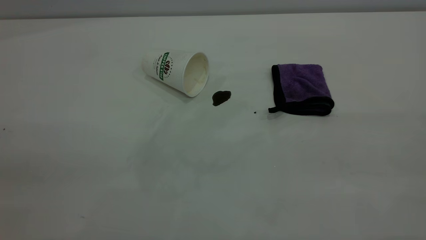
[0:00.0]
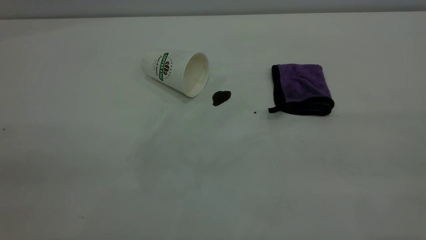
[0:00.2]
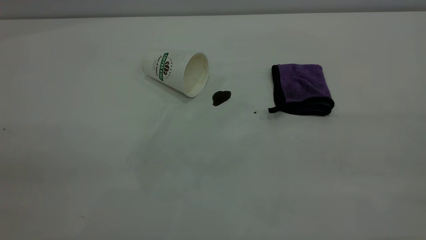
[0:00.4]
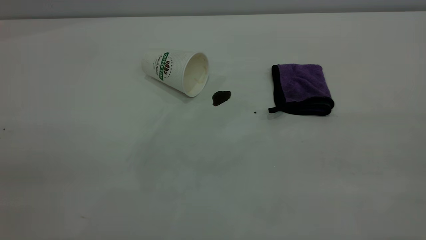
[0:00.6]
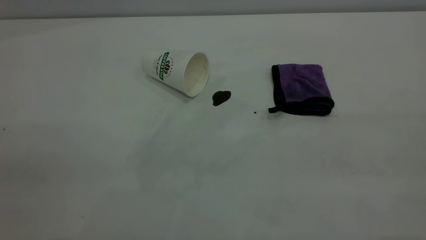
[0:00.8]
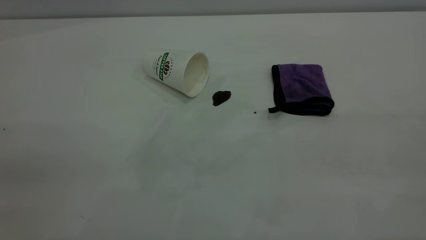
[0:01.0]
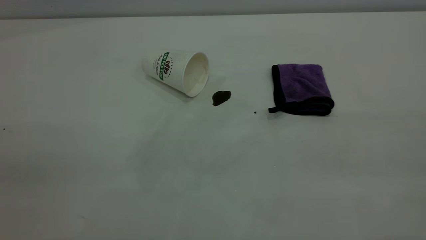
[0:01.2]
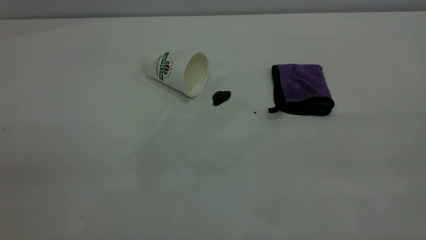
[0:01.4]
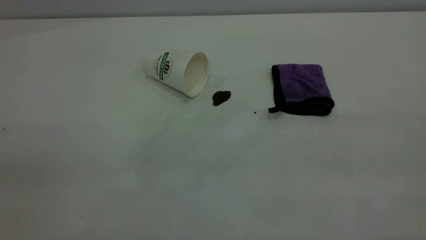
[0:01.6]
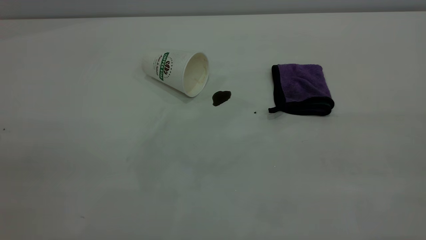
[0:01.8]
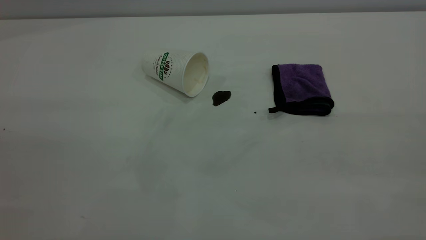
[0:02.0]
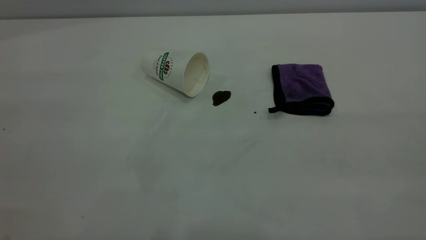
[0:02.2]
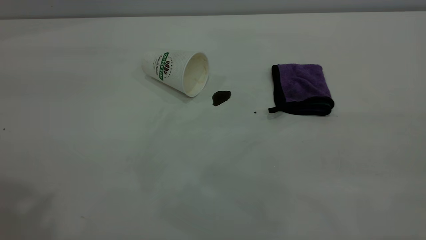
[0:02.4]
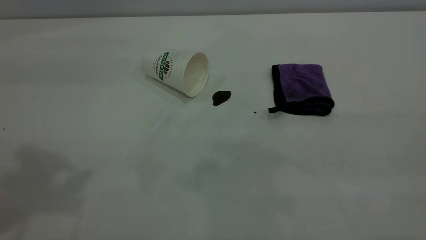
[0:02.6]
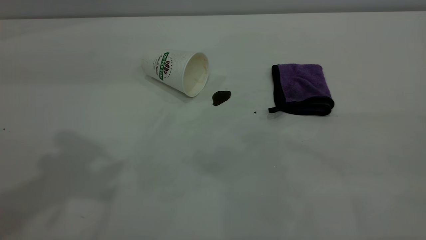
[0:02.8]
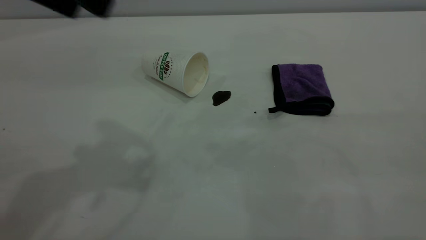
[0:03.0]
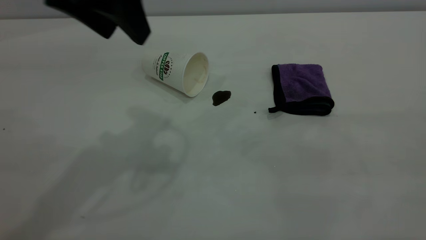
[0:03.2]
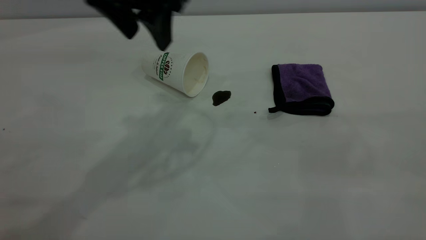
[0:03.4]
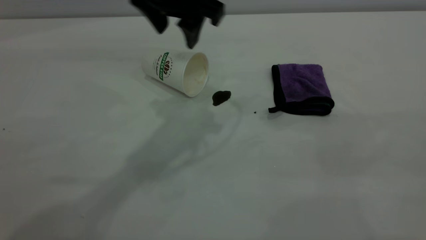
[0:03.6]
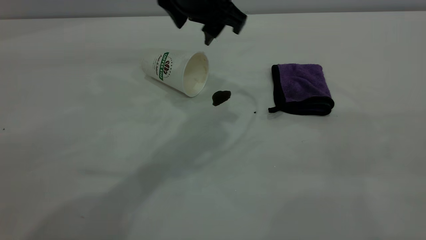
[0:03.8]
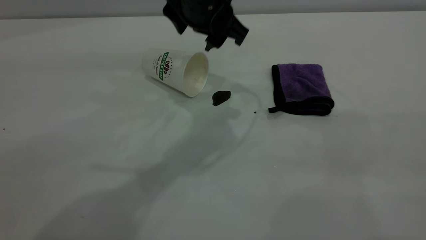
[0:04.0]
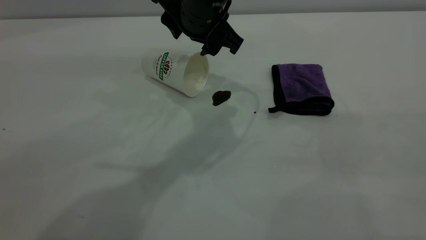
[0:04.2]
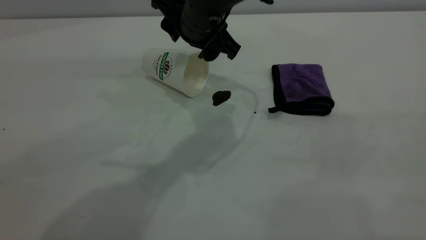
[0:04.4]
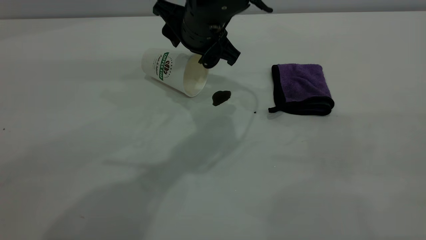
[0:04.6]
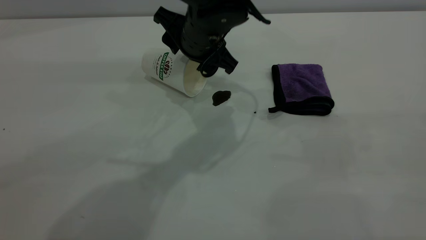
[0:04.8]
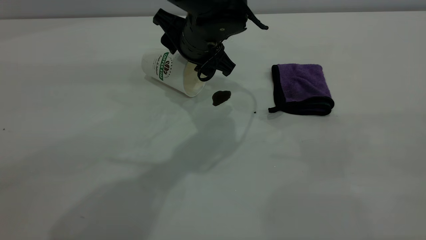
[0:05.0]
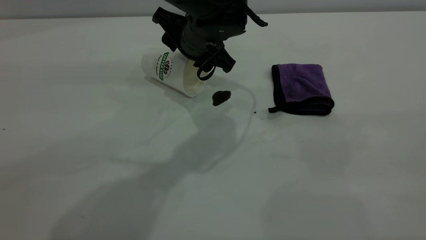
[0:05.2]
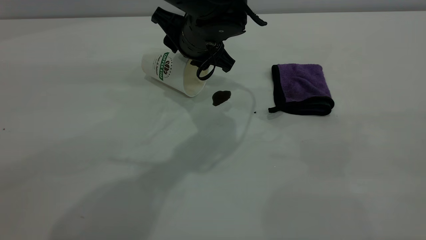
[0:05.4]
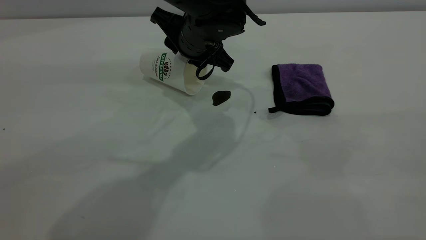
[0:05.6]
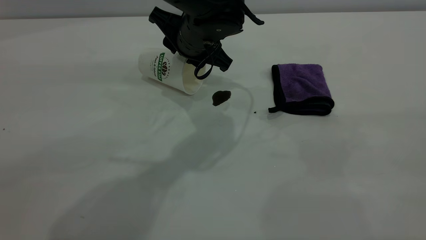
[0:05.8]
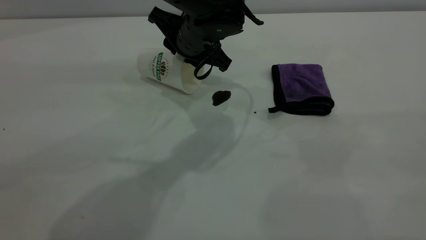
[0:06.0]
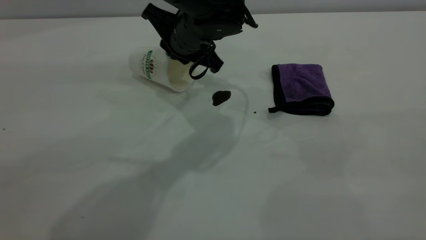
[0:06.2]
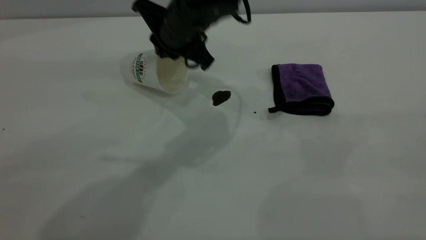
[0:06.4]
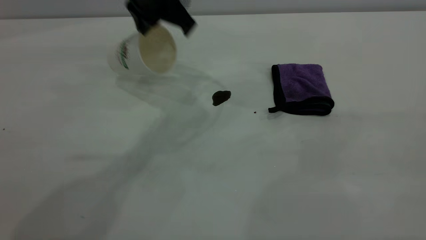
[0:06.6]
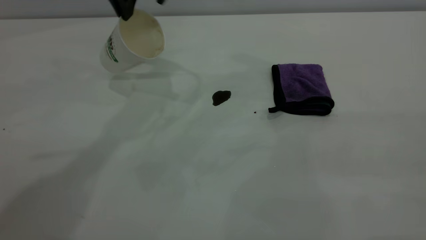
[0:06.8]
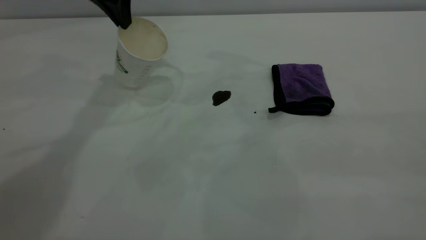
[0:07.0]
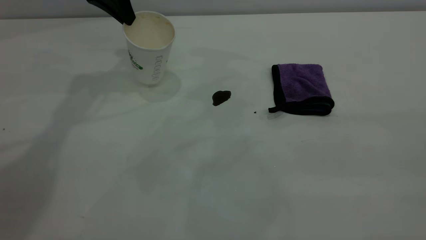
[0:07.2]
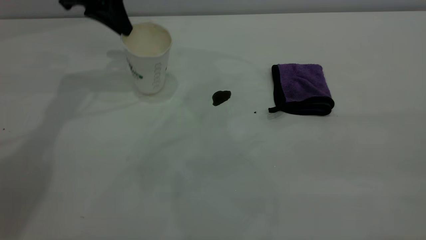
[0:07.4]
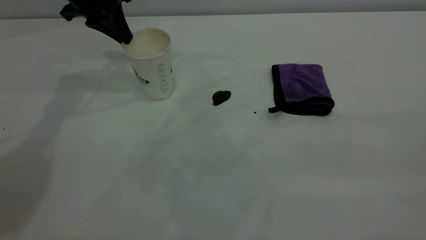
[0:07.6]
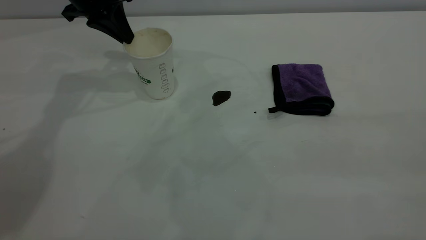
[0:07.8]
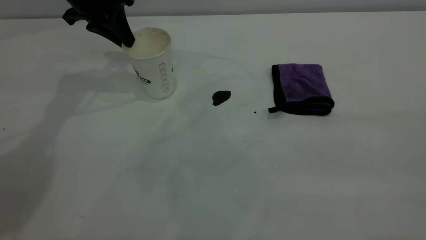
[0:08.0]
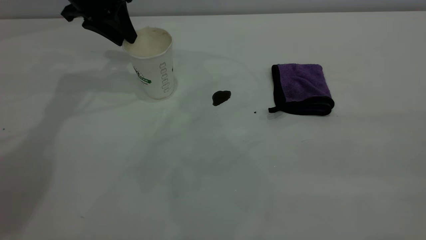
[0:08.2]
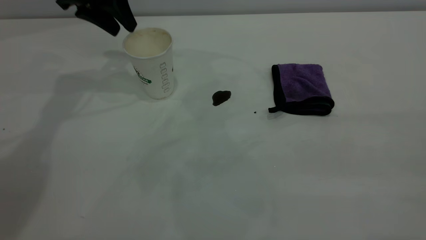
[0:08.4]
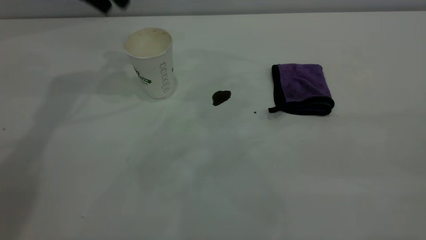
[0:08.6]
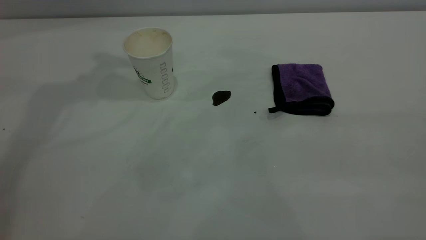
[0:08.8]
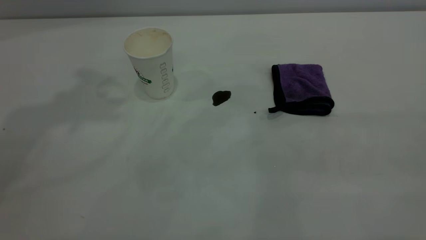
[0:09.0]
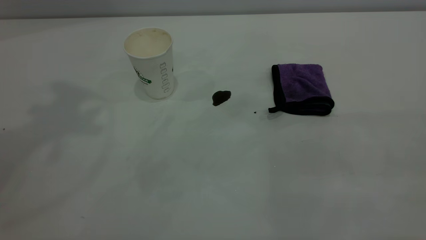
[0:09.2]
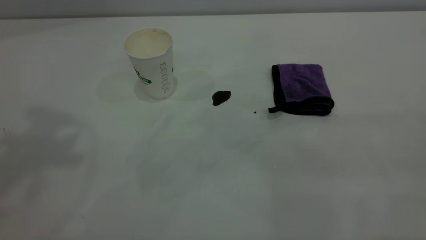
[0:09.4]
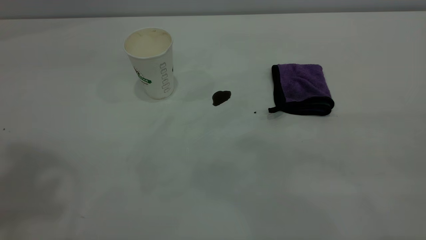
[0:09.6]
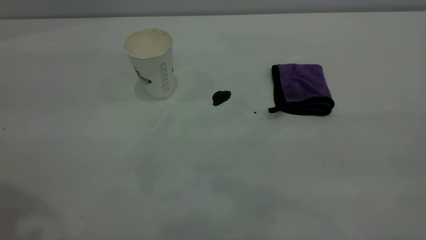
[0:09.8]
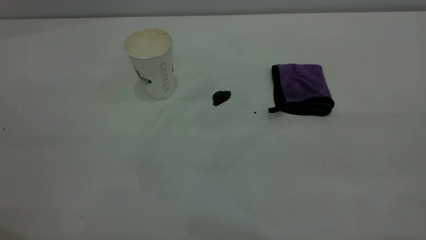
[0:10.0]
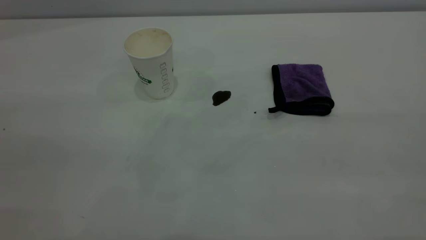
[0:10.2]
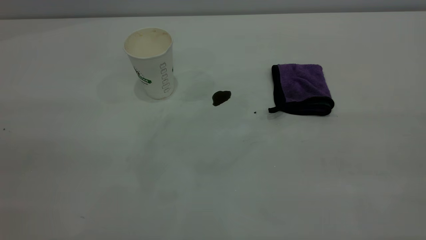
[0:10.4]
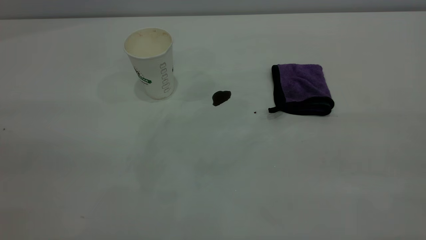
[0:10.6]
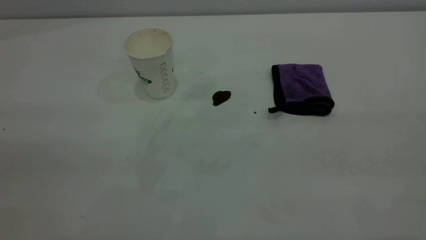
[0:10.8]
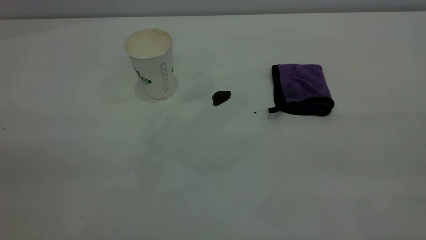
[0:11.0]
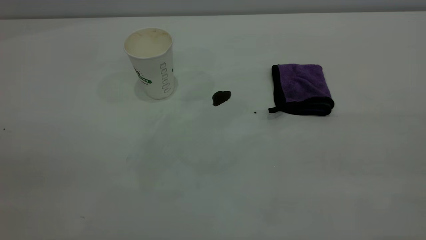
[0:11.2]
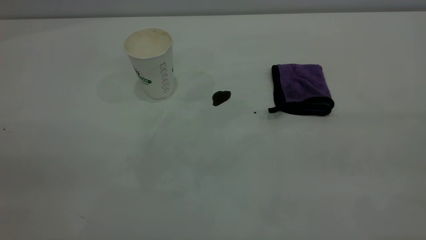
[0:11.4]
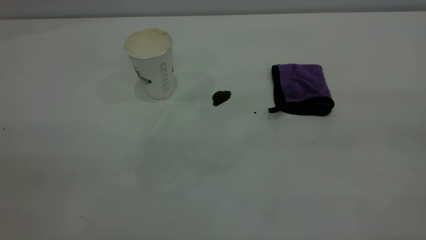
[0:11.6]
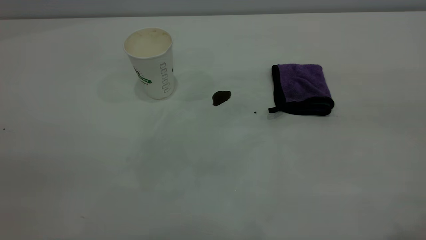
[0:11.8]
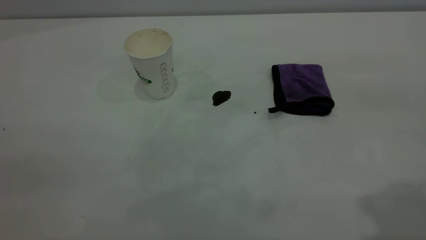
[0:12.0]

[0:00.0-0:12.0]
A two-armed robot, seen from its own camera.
Task of the whole recording: the left gripper pick up the fallen cup and place it upright, the right gripper grasp the purple rag and wipe the coffee stain on the table, the right gripper put the purple rag back in its original position.
Step, 0:00.0 to 0:08.4: Stand the paper cup upright.
0:00.0 to 0:01.6: The two grippers keep their place.
0:01.6 to 0:03.0: The left gripper shifts about 30 cm forward and to the right.
0:03.0 to 0:04.4: The left gripper goes approximately 25 cm downward, to the right and forward.
0:04.4 to 0:06.0: The left gripper closes.
0:06.0 to 0:07.6: The left gripper travels to the left and forward by some 20 cm, and closes.
0:07.6 to 0:09.0: The left gripper travels upward and backward by about 30 cm, and opens up.

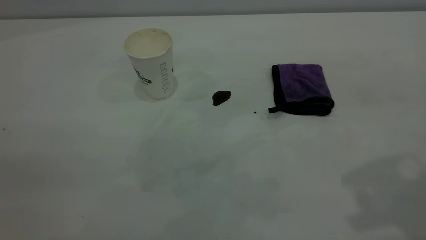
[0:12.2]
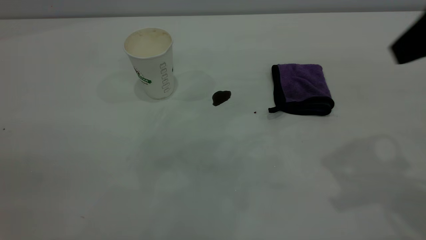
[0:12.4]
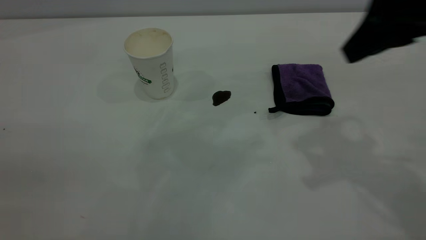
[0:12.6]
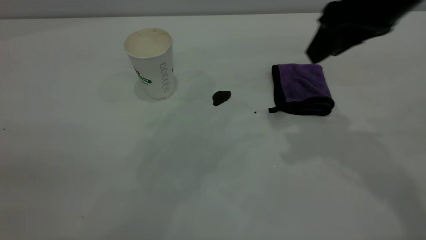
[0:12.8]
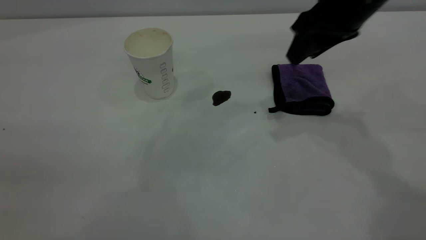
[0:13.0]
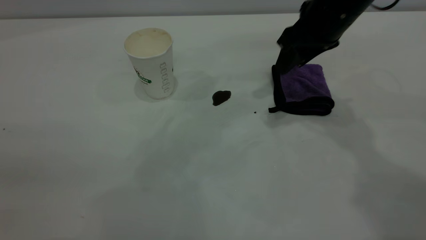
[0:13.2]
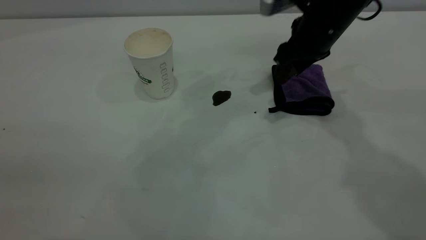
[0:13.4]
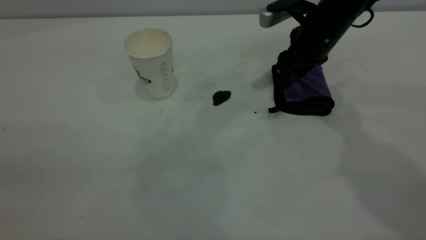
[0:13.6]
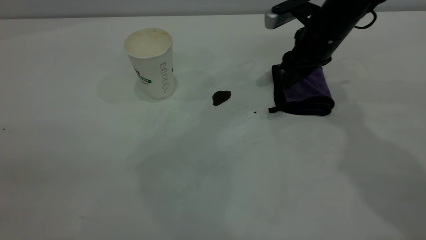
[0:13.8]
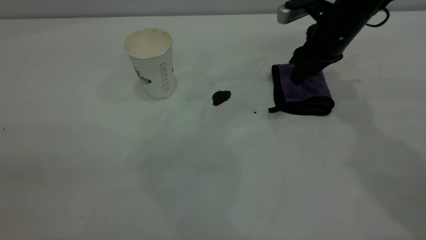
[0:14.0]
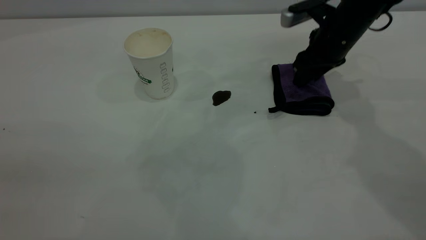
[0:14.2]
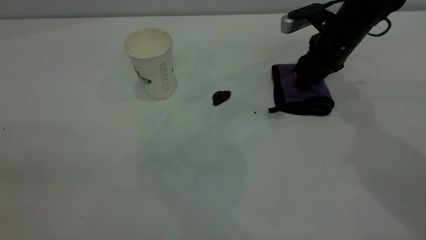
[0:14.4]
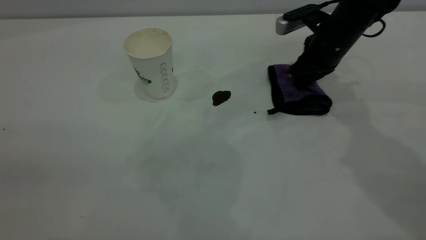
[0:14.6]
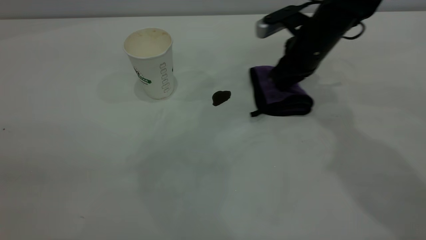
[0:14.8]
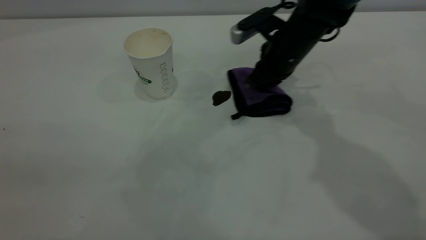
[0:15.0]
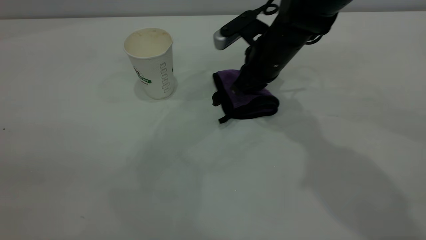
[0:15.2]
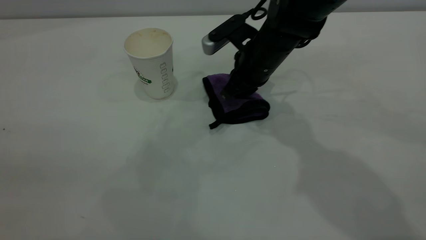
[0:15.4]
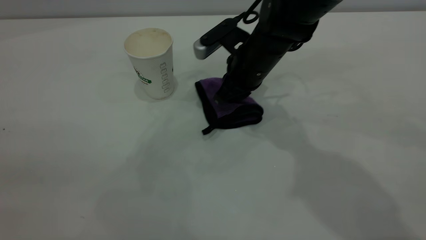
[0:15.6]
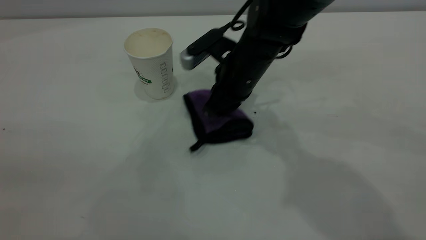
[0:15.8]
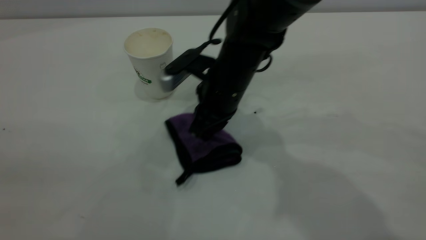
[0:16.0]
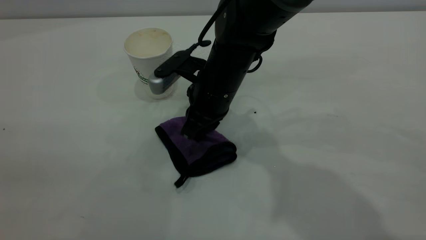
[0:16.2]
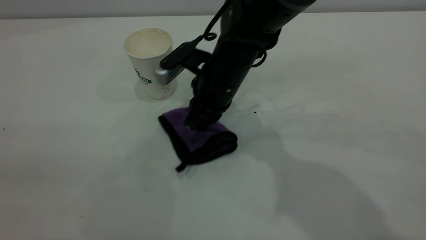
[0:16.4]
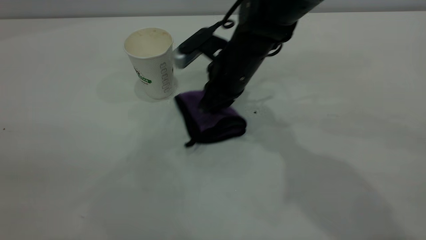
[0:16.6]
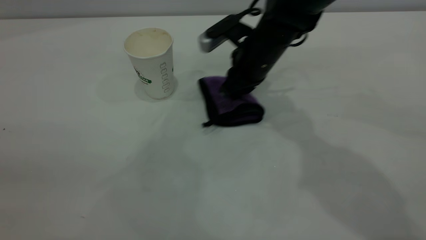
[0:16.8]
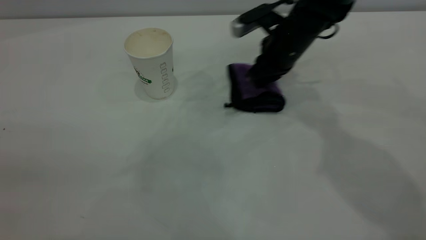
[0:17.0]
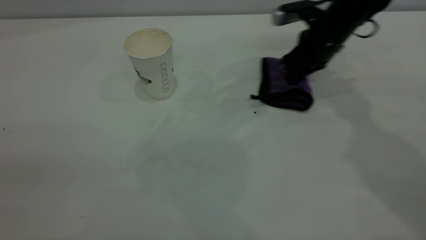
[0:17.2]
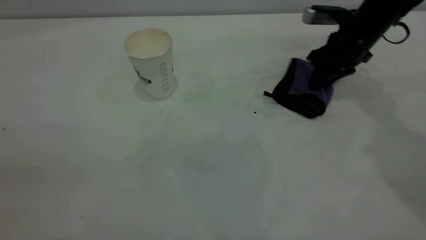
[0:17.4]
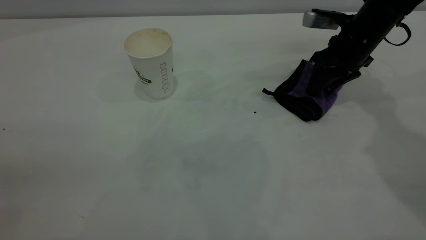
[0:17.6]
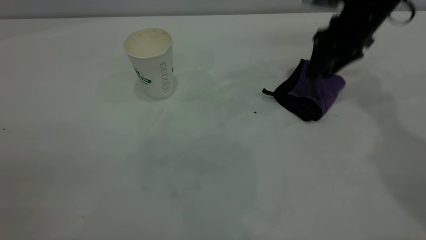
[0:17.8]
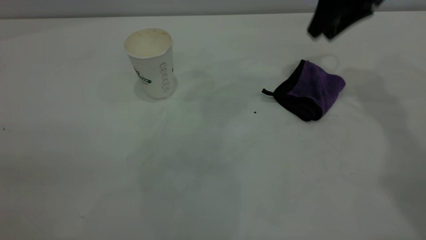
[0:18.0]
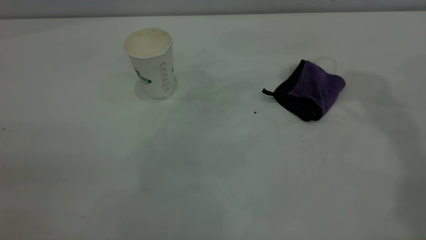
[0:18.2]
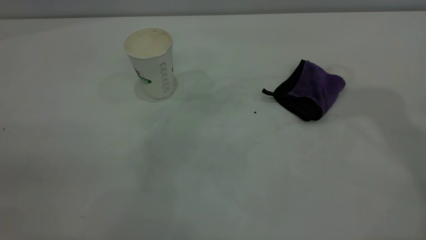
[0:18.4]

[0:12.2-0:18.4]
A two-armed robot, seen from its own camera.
Task of the whole recording: the left gripper pick up the fallen cup and place it upright, the right gripper grasp the purple rag and wipe the coffee stain on the table, the right gripper put the purple rag back in its original position.
Step, 0:12.2 to 0:17.8: Wipe the stains off the table with a rag.
0:12.2 to 0:13.8: The right gripper moves forward and downward, about 35 cm.
0:13.8 to 0:15.4: The right gripper goes about 10 cm to the left, and closes up.
0:15.4 to 0:16.8: The right gripper moves roughly 5 cm to the left and comes back.
0:16.8 to 0:18.4: The right gripper is displaced upward and to the right by some 35 cm, and opens.
